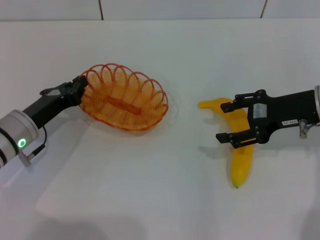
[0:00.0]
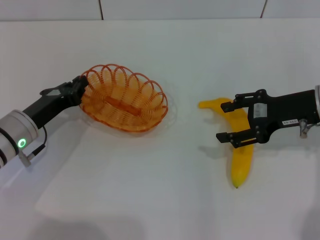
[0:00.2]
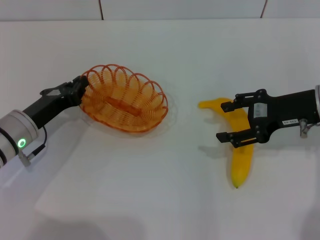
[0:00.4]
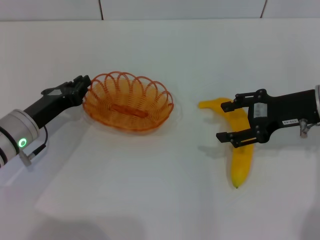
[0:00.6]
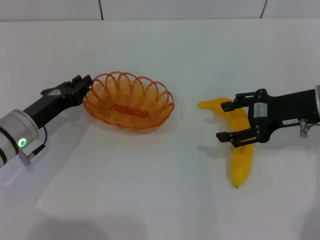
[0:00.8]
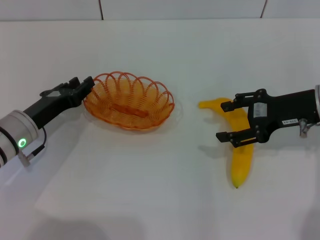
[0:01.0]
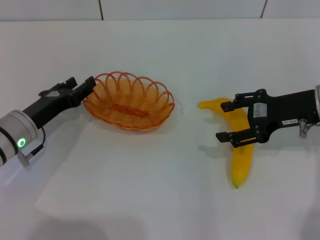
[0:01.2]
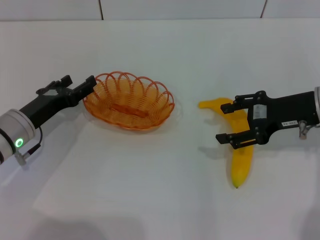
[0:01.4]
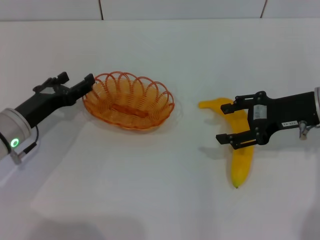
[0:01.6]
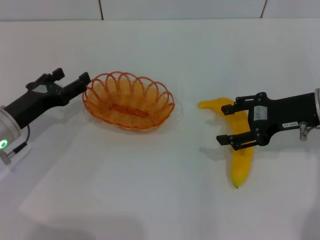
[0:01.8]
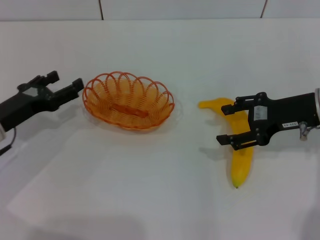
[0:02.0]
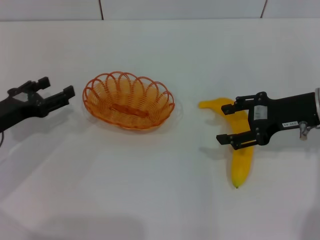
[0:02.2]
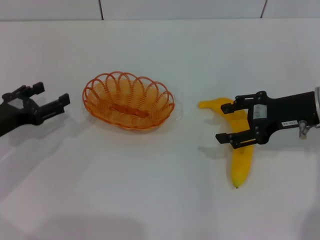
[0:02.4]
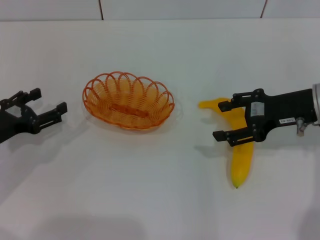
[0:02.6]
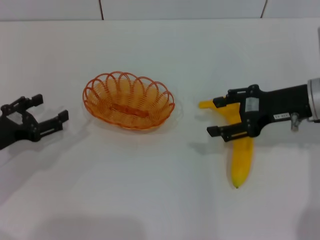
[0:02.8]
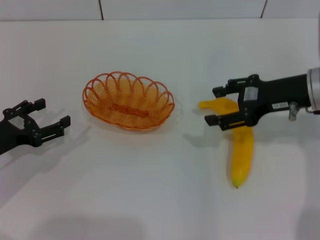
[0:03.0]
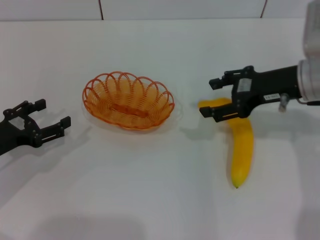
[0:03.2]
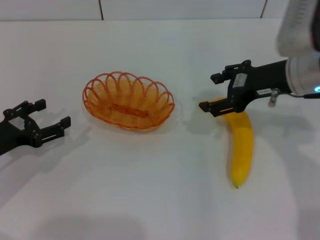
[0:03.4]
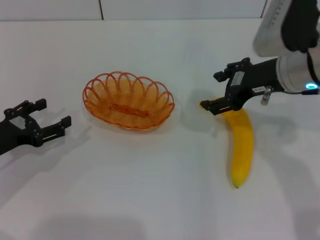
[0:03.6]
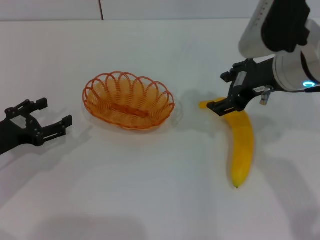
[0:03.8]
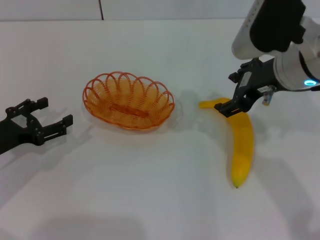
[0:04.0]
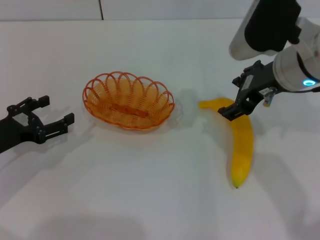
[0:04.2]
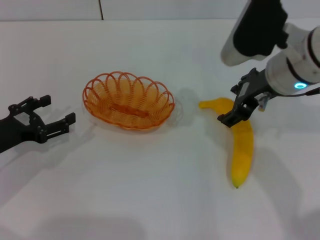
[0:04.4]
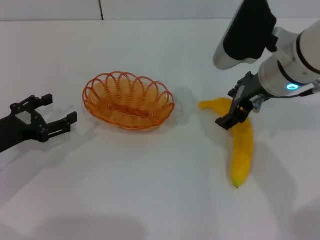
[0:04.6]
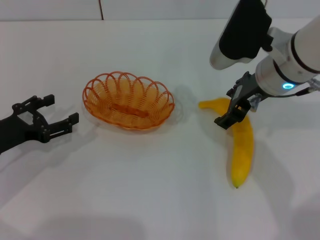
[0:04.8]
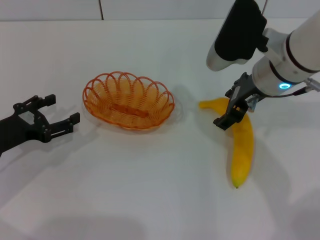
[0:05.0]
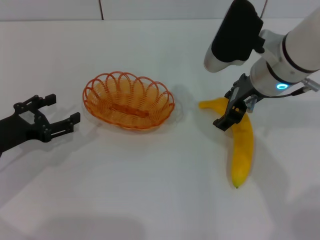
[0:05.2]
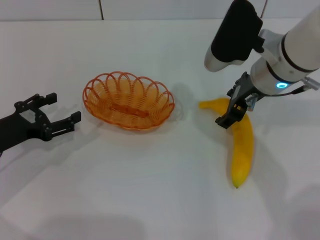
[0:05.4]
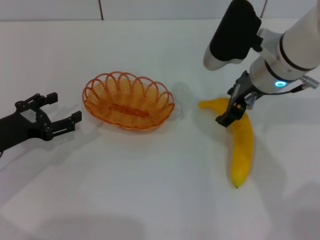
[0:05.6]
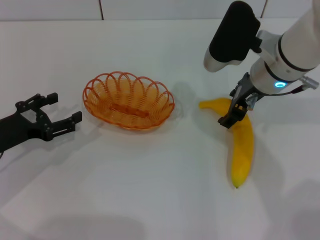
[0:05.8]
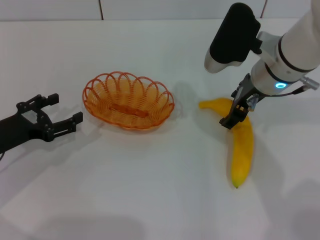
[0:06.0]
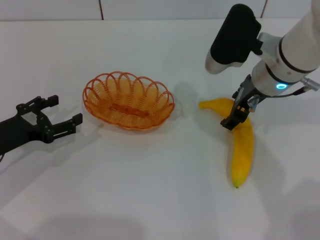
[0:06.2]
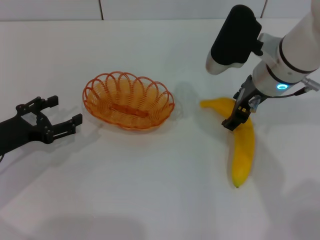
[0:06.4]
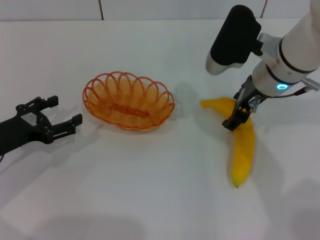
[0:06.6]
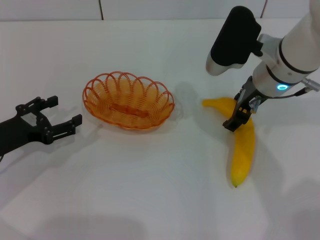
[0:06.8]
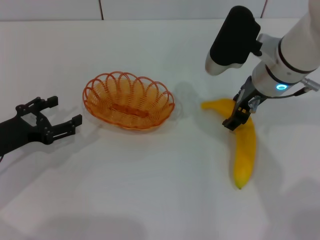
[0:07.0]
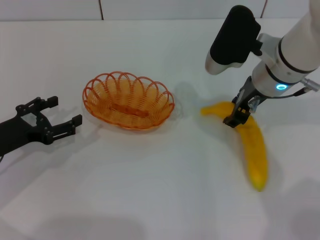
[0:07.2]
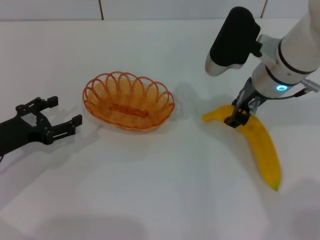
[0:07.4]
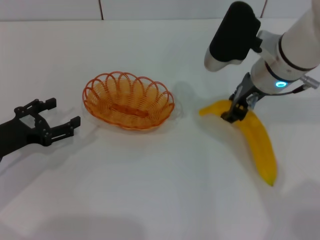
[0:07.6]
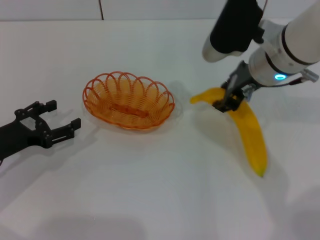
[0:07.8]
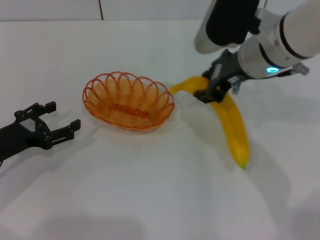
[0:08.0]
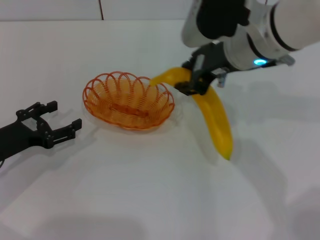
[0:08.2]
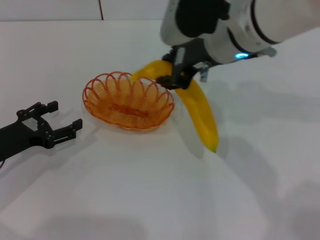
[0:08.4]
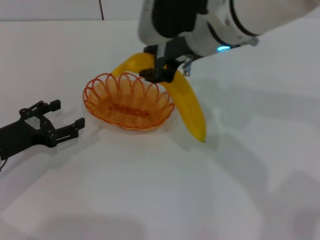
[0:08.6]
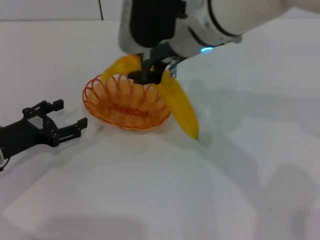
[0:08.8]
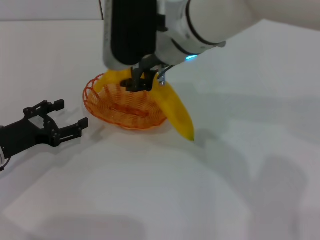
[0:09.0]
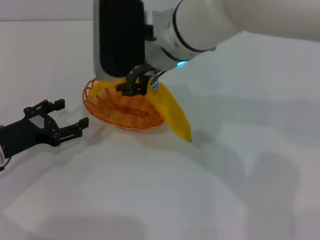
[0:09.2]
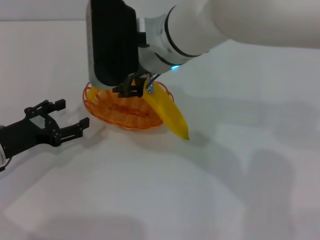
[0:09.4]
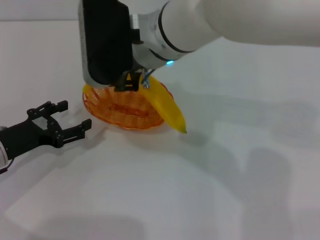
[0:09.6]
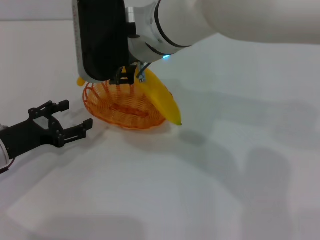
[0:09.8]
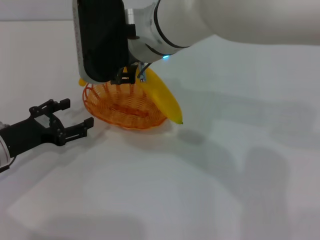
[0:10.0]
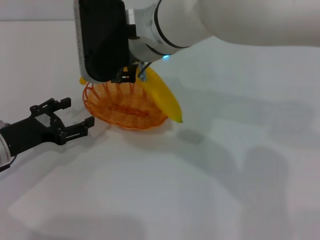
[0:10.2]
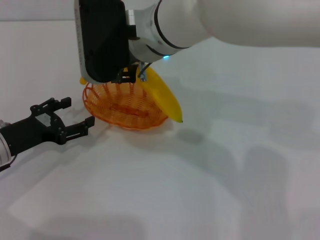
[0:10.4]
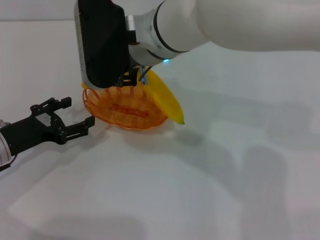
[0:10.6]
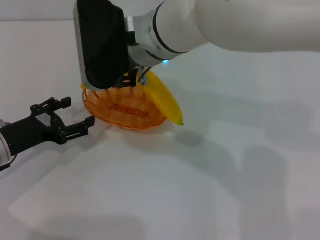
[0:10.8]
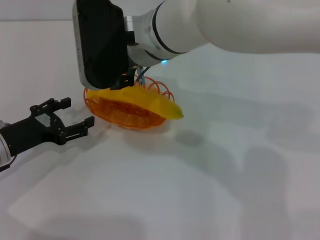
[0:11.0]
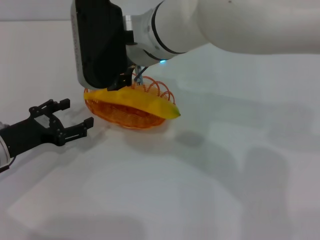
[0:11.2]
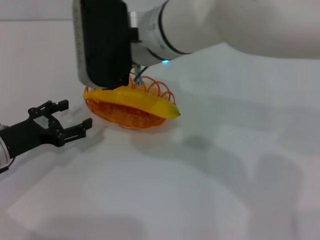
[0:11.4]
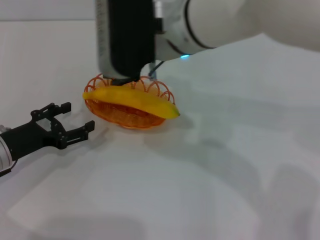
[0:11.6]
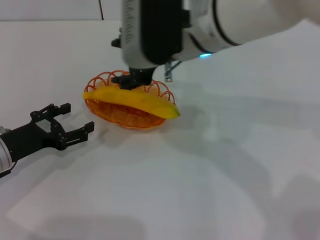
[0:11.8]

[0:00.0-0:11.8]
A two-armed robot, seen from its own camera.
Step, 0:00.0 to 0:02.8: Place the basket in the center of view with the left gripper.
Step, 0:03.0 to 0:08.0: Pick up the banana with the right gripper.
Step, 0:08.2 to 0:11.4: Place the banana into the basket with the right gripper.
0:00.0 to 0:01.4: The left gripper opens.
0:01.4 to 0:03.0: The left gripper moves to the left, approximately 5 cm.
0:03.0 to 0:04.4: The right gripper is displaced to the left by approximately 10 cm.
0:04.4 to 0:06.0: The grippers move only a little.
0:06.0 to 0:07.4: Both grippers stay put.
0:07.4 to 0:08.8: The right gripper heads to the left and upward, covering approximately 15 cm.
0:08.8 to 0:10.4: The right gripper ends up approximately 5 cm from where it was.
0:10.4 to 0:11.8: The right gripper shifts about 5 cm to the right, and opens its fingers.

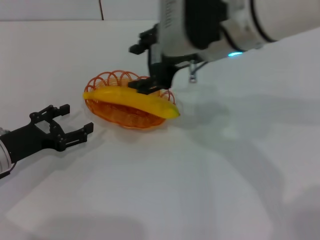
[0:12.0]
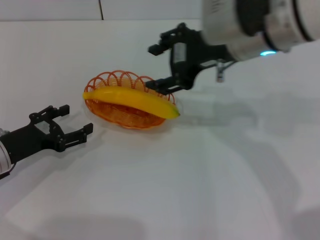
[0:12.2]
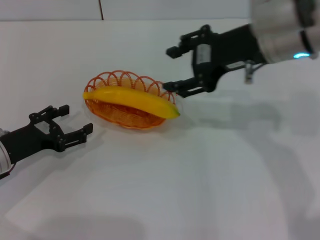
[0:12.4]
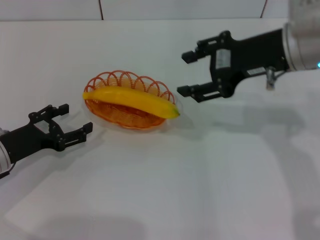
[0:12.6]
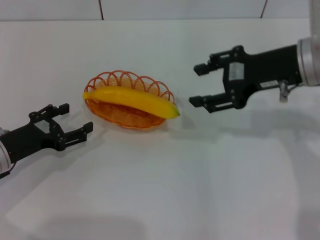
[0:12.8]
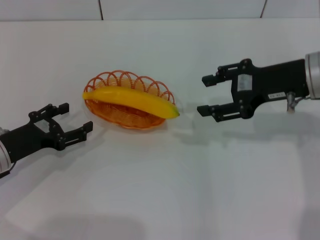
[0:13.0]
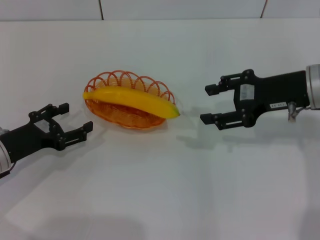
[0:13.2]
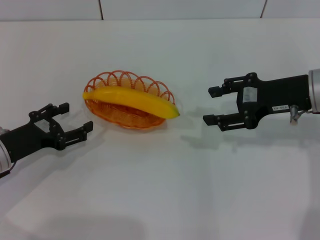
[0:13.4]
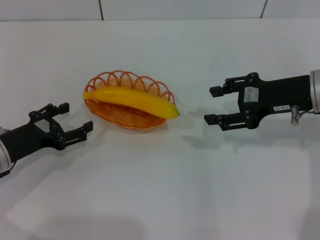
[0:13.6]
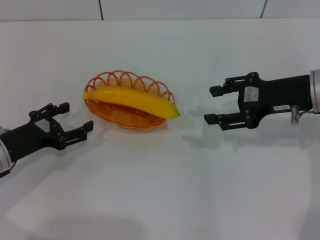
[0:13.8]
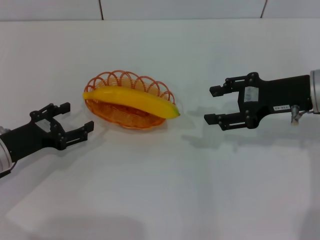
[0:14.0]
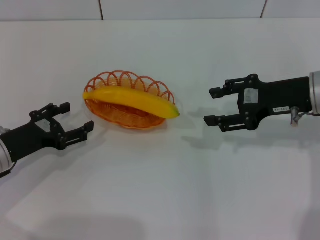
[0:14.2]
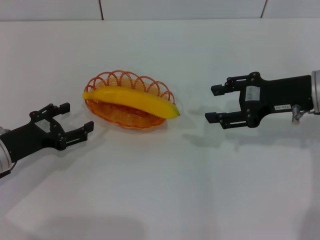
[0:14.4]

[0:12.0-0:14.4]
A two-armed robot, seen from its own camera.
0:12.0 to 0:13.2: The right gripper heads to the right and downward, covering approximately 15 cm.
0:13.2 to 0:14.4: The grippers stay close to where they were, moving slightly.

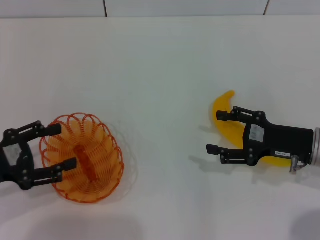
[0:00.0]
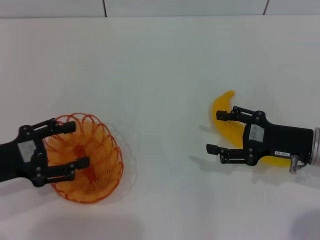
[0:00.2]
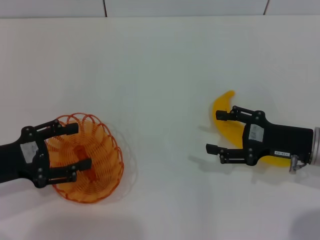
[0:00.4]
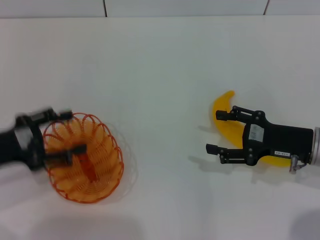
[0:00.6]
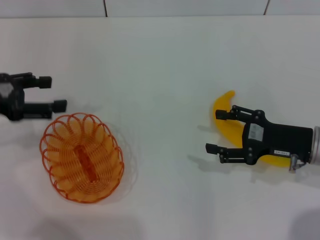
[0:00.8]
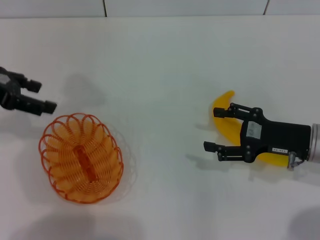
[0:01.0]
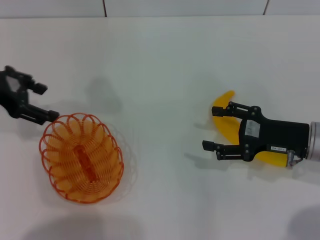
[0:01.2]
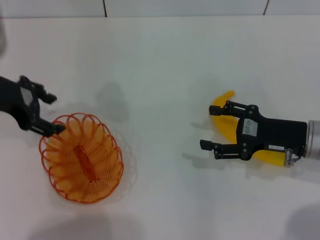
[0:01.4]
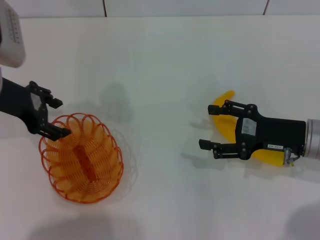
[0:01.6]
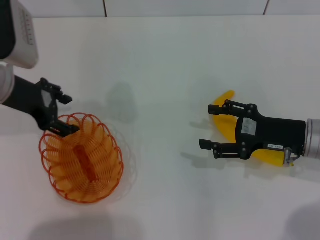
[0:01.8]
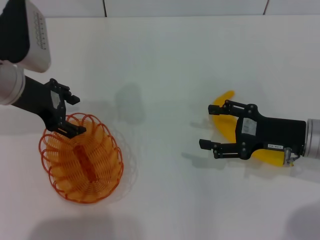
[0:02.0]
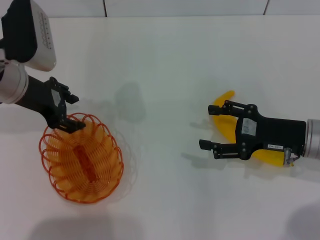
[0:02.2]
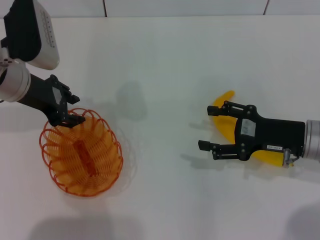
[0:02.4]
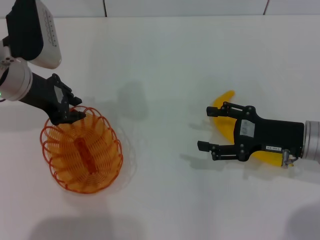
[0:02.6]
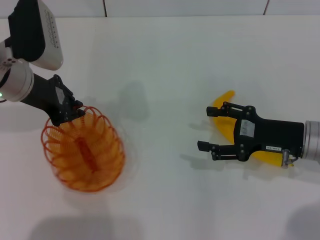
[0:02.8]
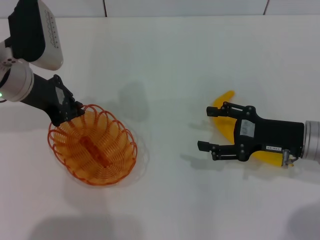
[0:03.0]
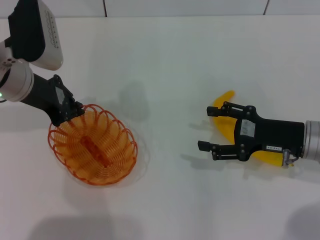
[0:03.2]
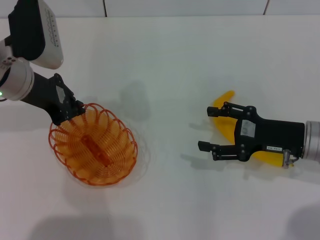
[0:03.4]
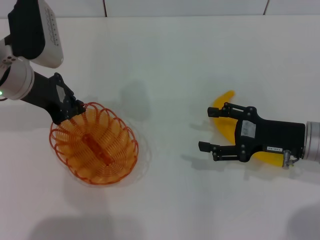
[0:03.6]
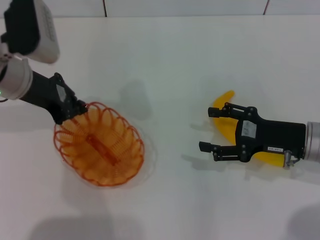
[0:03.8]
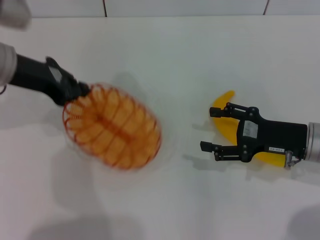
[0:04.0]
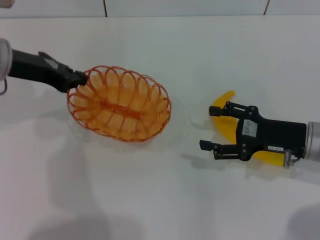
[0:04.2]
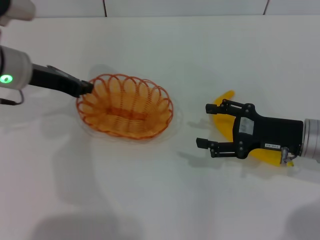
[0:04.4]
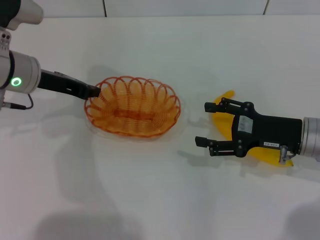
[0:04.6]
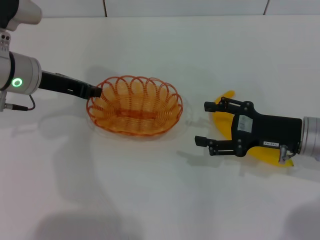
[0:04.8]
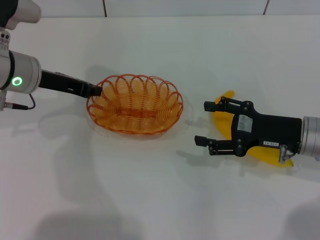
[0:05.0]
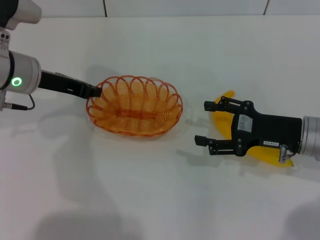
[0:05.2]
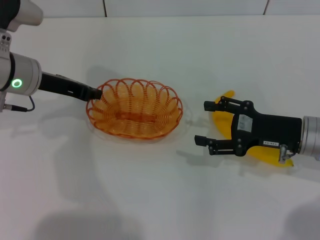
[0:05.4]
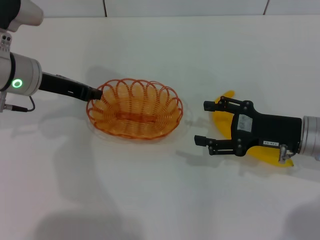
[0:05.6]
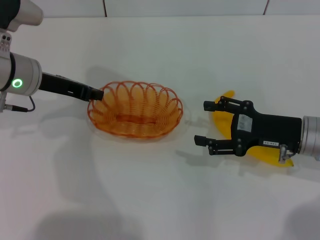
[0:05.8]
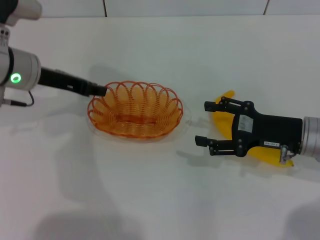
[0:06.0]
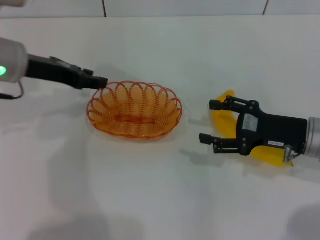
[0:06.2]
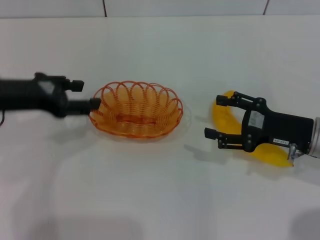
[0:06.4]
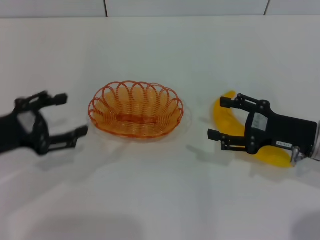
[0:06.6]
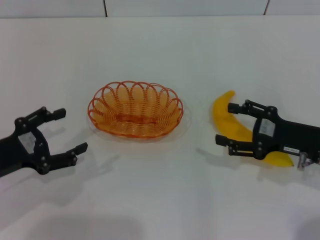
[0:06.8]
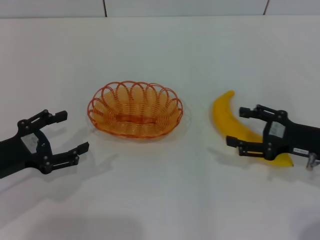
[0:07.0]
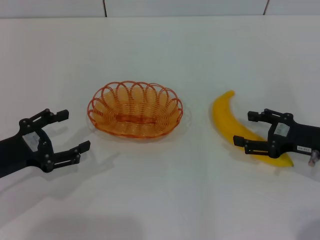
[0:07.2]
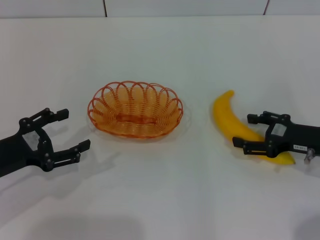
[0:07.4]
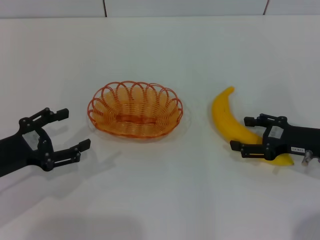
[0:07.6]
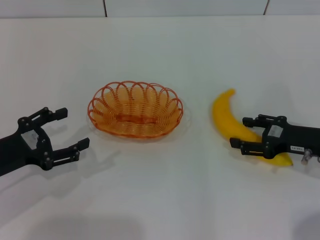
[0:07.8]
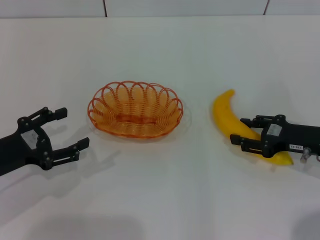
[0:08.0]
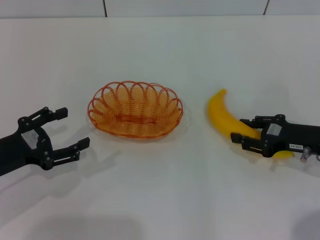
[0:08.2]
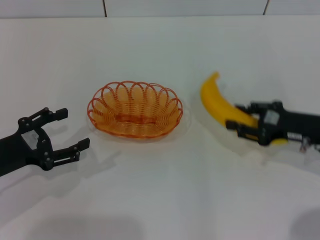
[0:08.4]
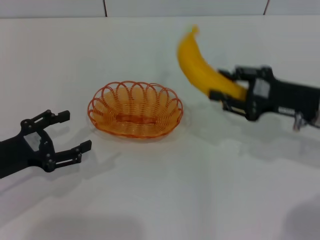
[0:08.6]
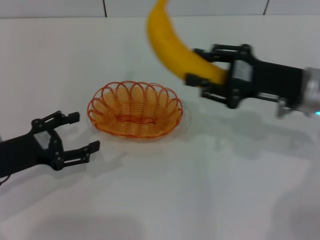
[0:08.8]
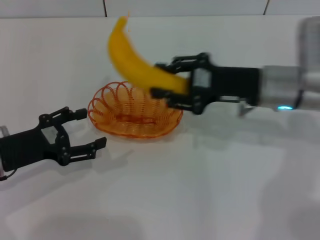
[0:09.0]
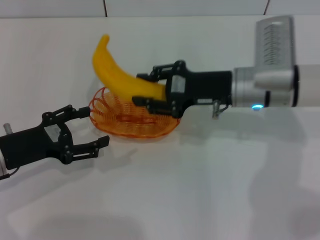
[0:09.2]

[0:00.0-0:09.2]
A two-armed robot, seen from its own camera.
Step, 0:00.0 to 0:04.4: Pick up the basket with the left gripper.
Step, 0:04.6 to 0:06.4: Place the basket in the center of view with the left gripper.
Step, 0:06.6 to 0:08.6: Pick up the banana with the right gripper.
0:00.0 to 0:01.6: The left gripper moves forward, upward and to the right, roughly 15 cm.
0:01.6 to 0:03.0: The left gripper closes up.
0:04.6 to 0:06.2: The grippers make only small movements.
0:06.2 to 0:07.6: The left gripper moves backward, downward and to the left, roughly 20 cm, and opens its fingers.
0:07.6 to 0:09.2: The right gripper goes roughly 20 cm to the left, forward and upward, and closes its fingers.
